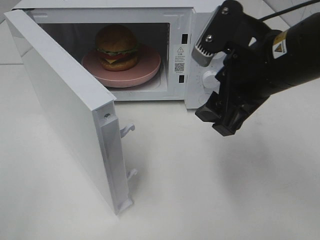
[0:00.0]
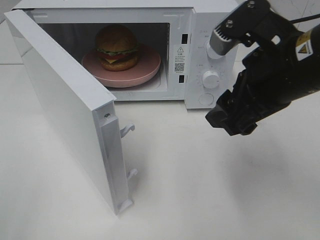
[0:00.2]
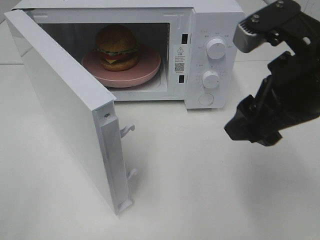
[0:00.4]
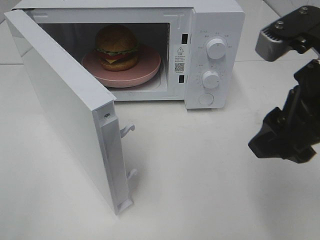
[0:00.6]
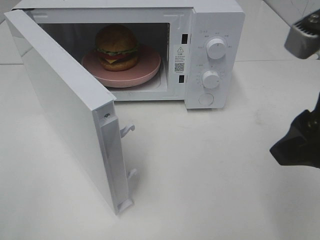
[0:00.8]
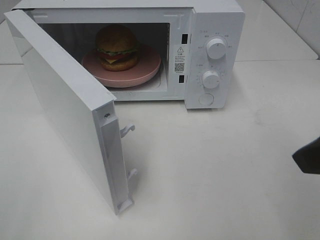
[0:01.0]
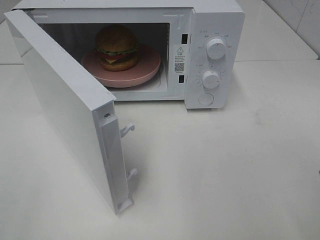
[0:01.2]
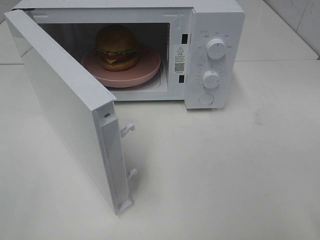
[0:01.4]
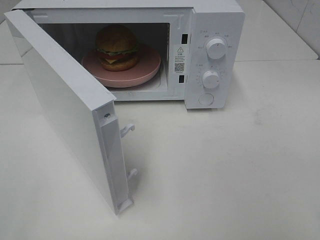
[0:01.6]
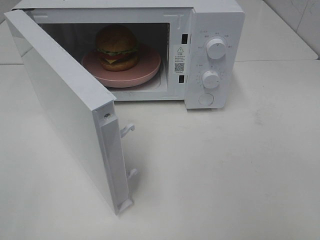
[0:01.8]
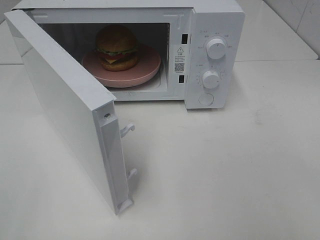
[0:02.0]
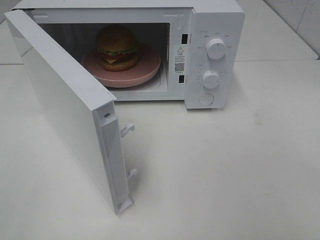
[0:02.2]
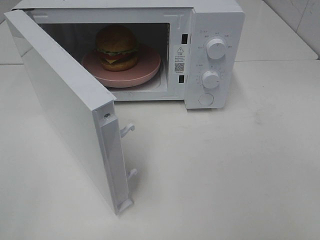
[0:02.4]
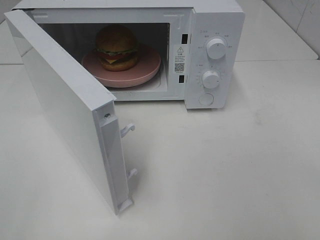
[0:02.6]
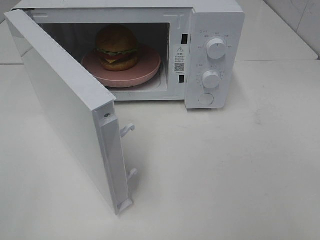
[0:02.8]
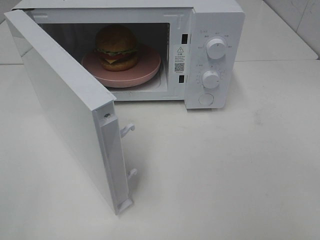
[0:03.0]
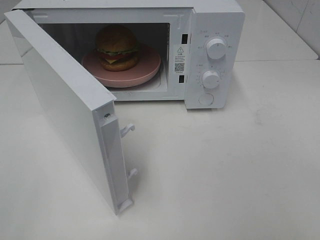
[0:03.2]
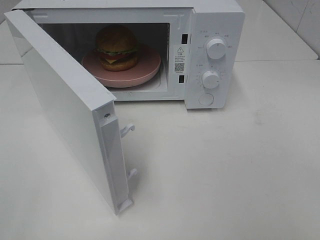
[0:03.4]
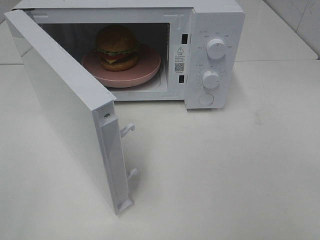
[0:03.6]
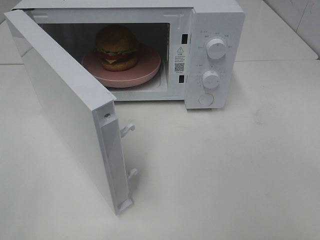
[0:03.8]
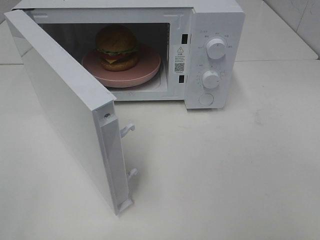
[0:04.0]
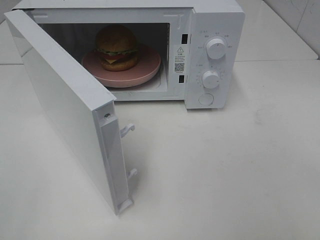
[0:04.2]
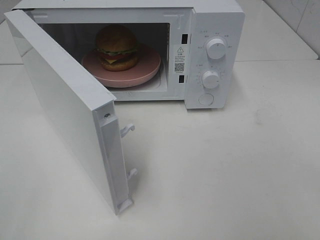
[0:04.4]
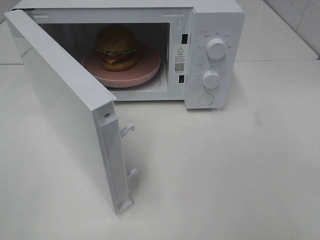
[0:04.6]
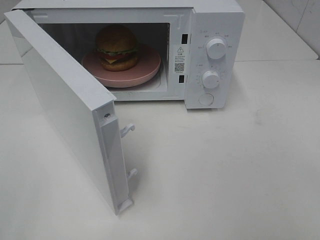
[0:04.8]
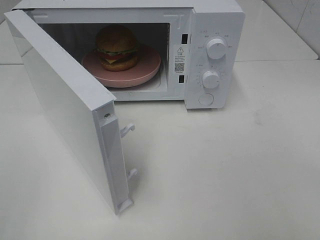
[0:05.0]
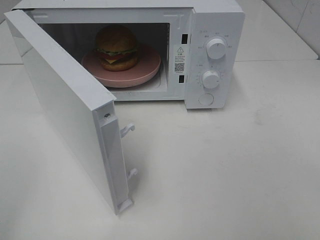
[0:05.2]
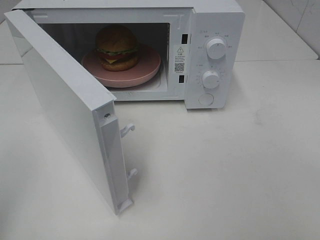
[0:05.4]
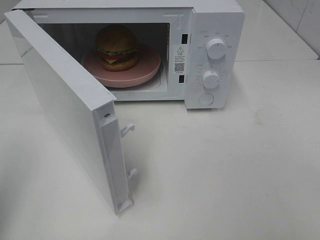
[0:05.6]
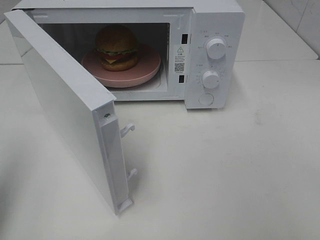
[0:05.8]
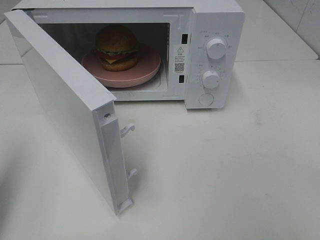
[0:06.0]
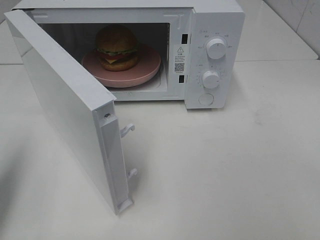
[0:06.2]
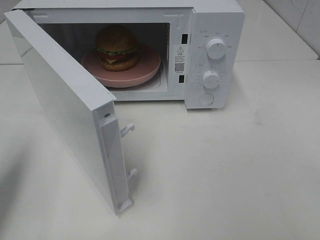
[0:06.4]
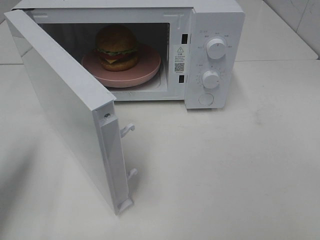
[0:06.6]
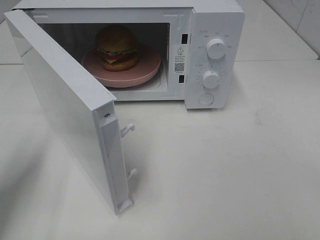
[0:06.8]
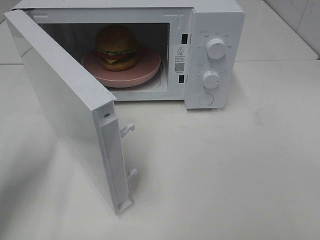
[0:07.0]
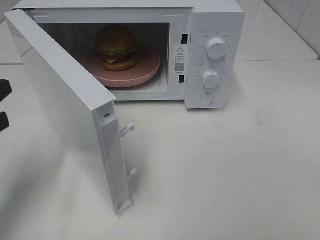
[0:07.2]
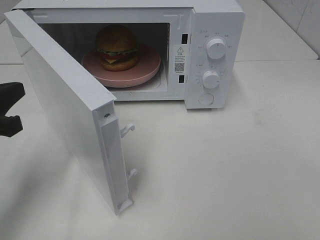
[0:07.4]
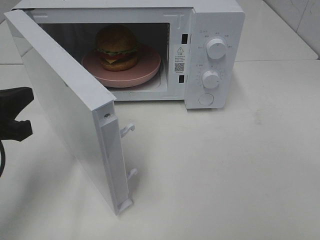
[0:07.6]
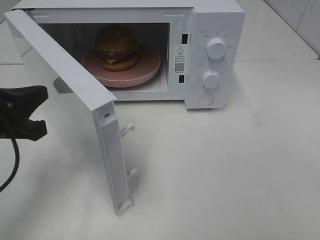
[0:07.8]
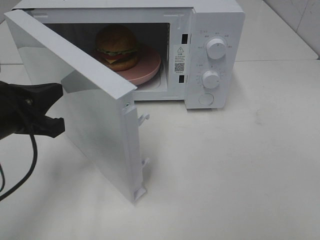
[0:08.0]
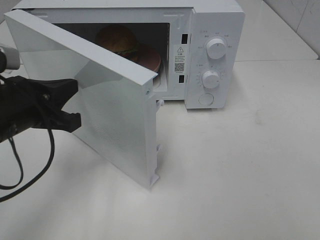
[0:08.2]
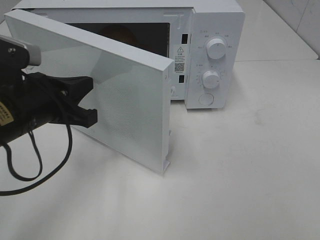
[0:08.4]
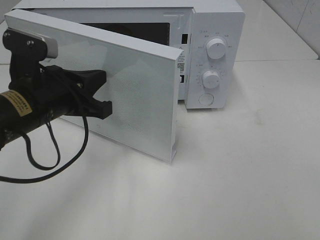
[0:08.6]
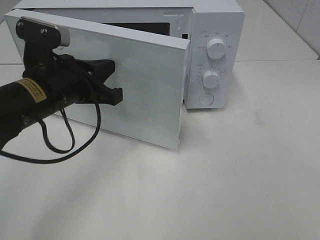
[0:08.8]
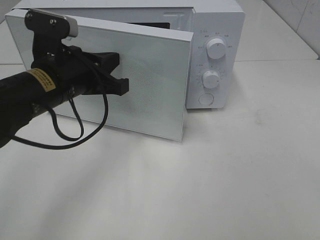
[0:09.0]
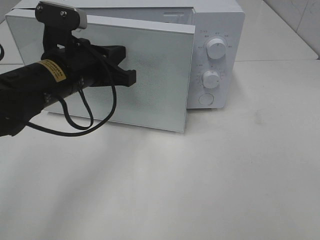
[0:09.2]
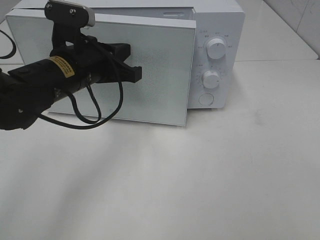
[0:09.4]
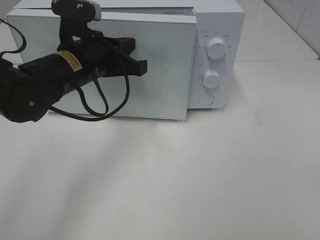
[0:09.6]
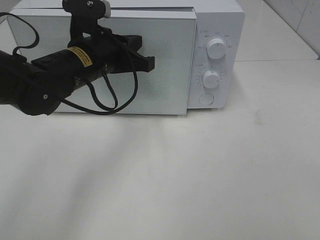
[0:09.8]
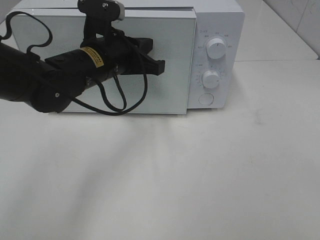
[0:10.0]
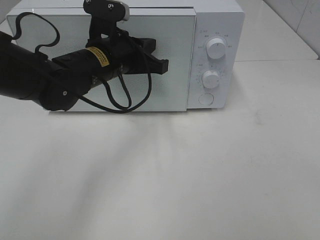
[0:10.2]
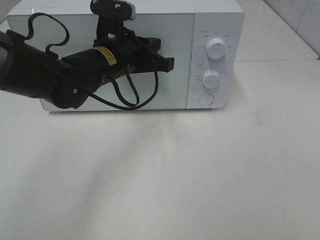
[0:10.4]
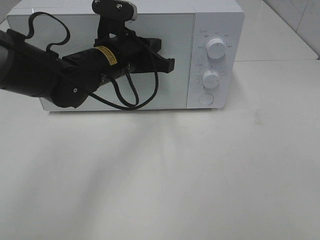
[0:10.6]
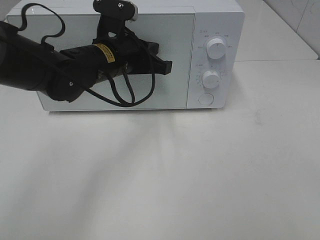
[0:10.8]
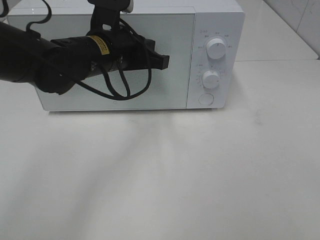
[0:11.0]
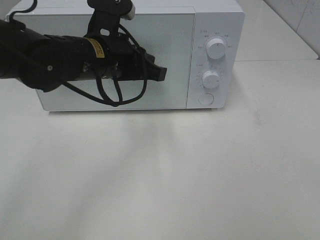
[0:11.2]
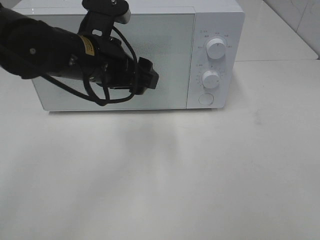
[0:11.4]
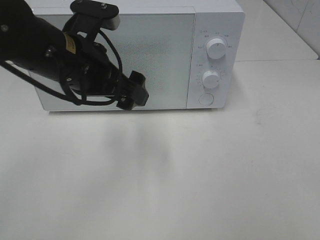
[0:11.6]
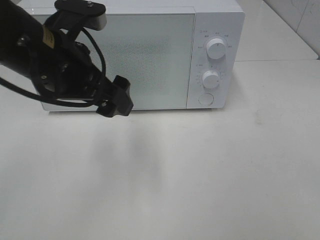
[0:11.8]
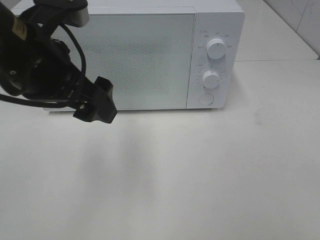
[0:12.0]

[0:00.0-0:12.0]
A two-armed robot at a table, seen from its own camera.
Task of the whole recording: Heat the burger.
Step, 0:00.0 to 0:10.8: Left hand: close the microwave door.
0:00.0 to 0:01.6: The right gripper is displaced backward and to the right by some 20 cm.
0:03.0 to 0:04.4: Neither gripper changes place.
0:04.4 to 0:06.0: The left gripper moves forward, about 15 cm, and closes.
0:06.0 to 0:07.6: The left gripper heads downward, to the right and forward, covering roughly 10 cm.
0:07.6 to 0:09.0: The left gripper is displaced to the right and forward by about 15 cm.
0:09.0 to 0:10.4: The left gripper is displaced forward and to the right by about 10 cm.
0:10.4 to 0:12.0: The left gripper travels backward, upward and to the left by some 15 cm, and opens up.

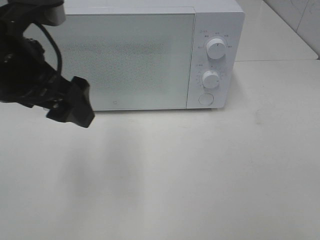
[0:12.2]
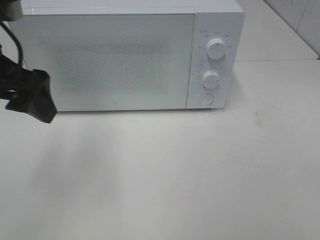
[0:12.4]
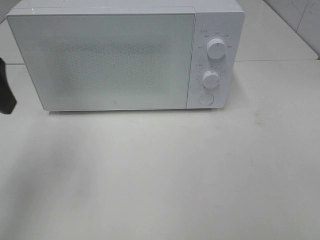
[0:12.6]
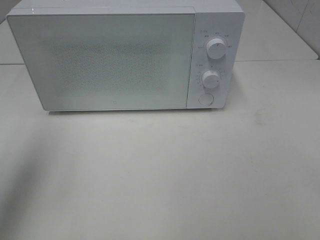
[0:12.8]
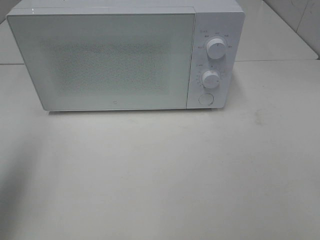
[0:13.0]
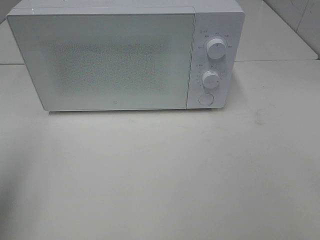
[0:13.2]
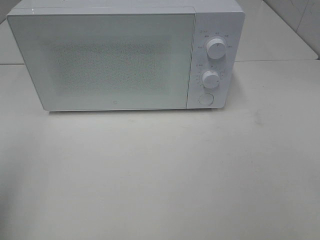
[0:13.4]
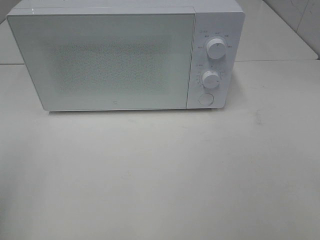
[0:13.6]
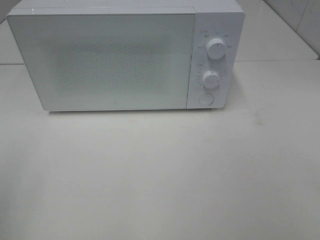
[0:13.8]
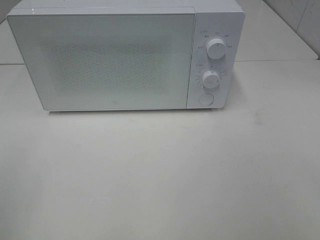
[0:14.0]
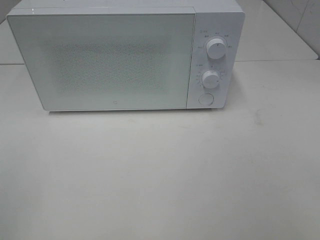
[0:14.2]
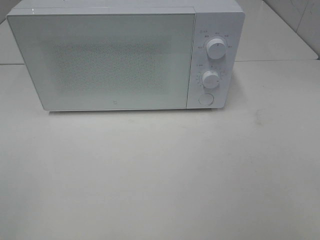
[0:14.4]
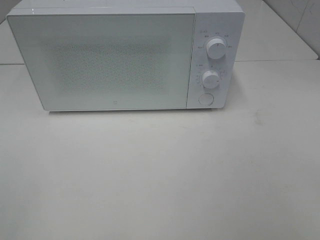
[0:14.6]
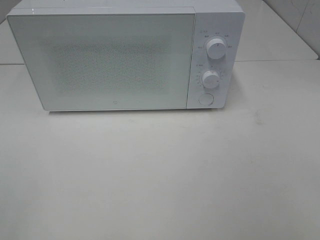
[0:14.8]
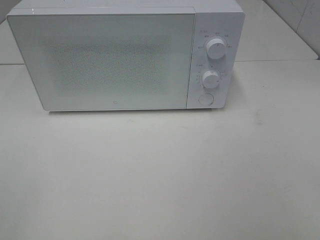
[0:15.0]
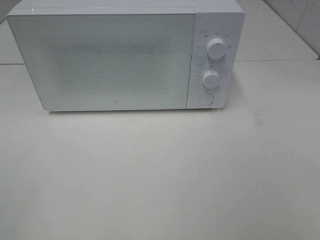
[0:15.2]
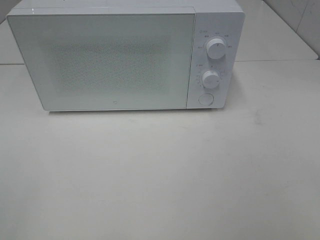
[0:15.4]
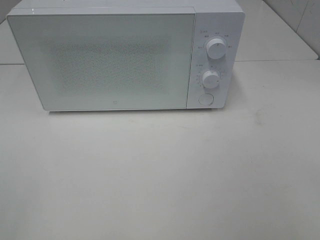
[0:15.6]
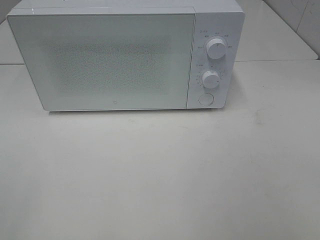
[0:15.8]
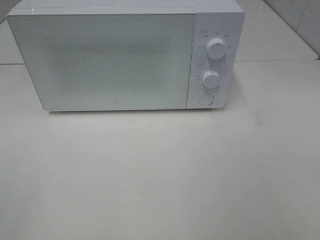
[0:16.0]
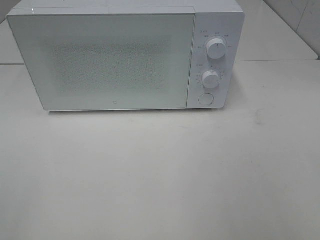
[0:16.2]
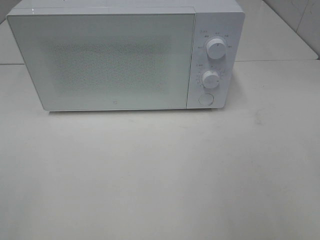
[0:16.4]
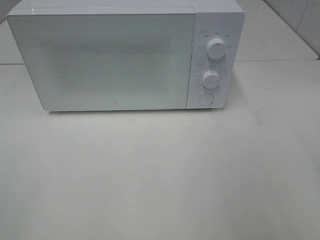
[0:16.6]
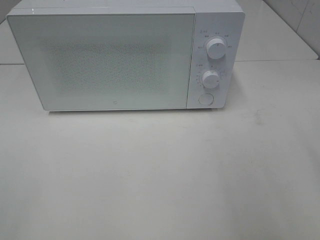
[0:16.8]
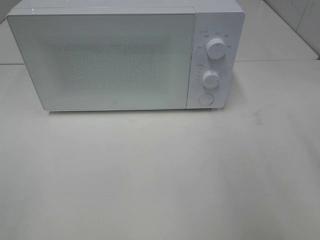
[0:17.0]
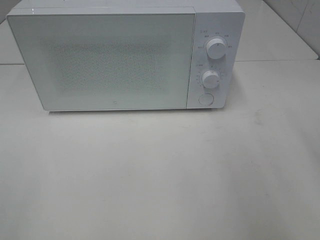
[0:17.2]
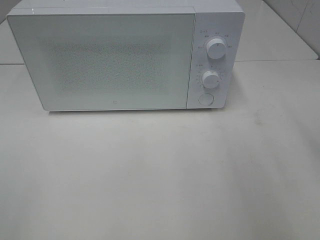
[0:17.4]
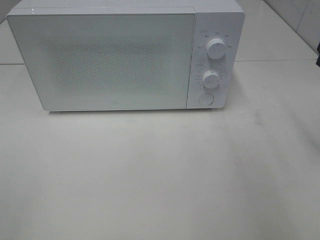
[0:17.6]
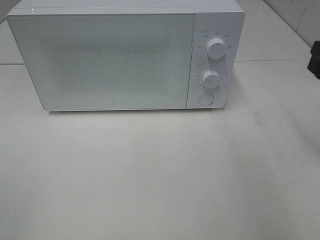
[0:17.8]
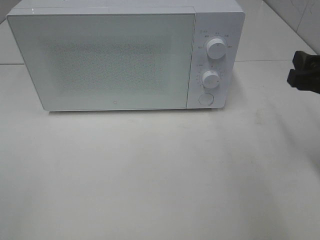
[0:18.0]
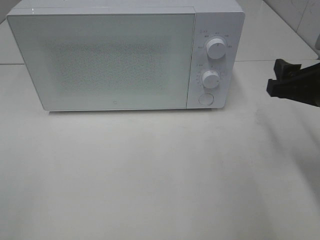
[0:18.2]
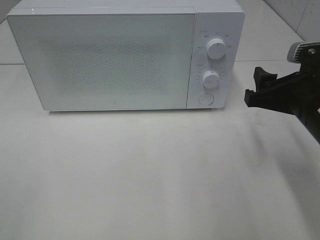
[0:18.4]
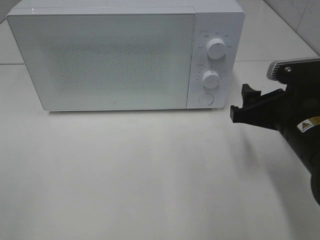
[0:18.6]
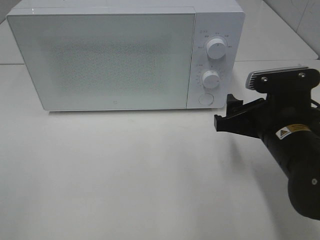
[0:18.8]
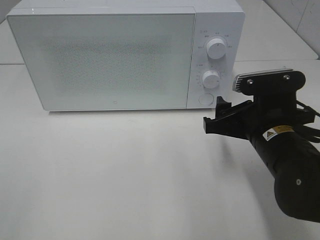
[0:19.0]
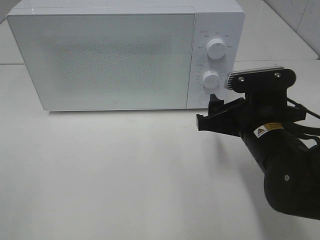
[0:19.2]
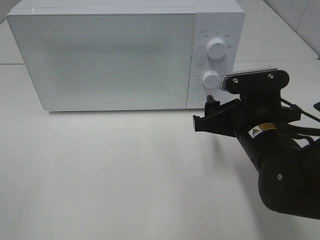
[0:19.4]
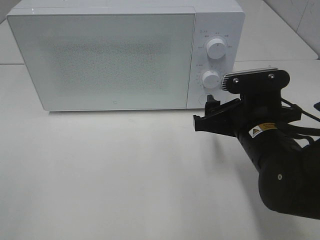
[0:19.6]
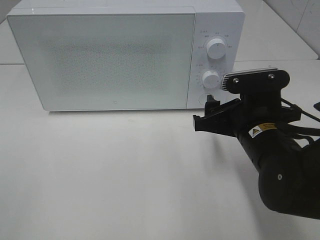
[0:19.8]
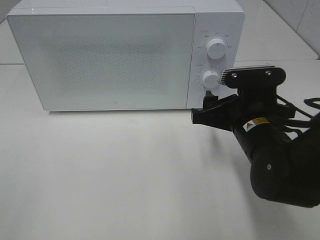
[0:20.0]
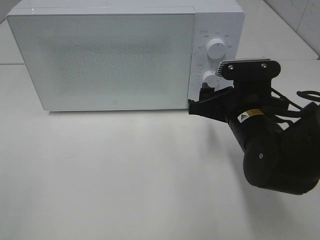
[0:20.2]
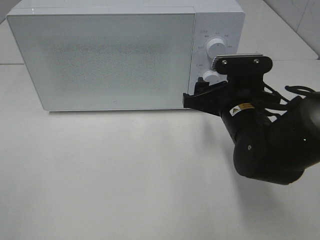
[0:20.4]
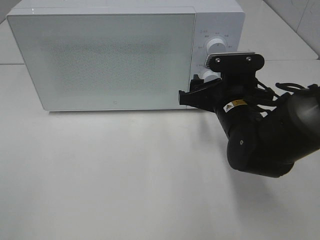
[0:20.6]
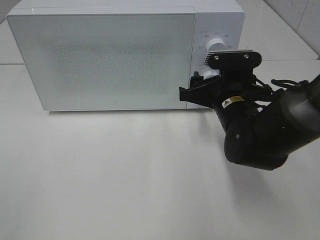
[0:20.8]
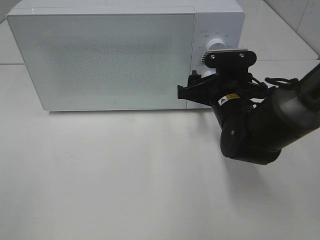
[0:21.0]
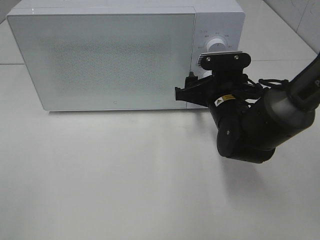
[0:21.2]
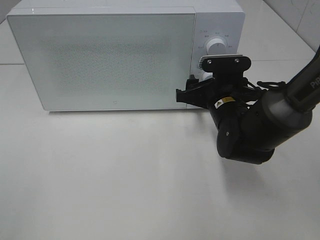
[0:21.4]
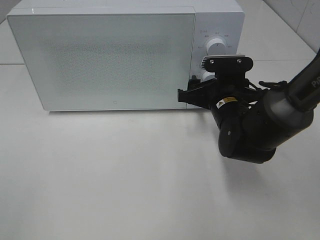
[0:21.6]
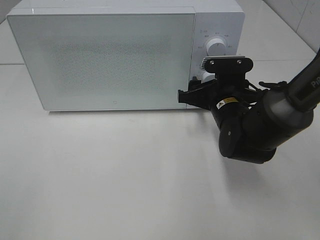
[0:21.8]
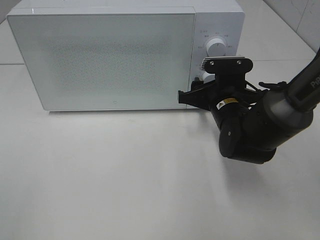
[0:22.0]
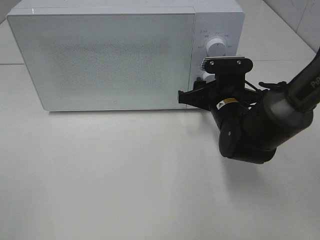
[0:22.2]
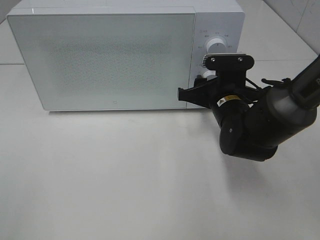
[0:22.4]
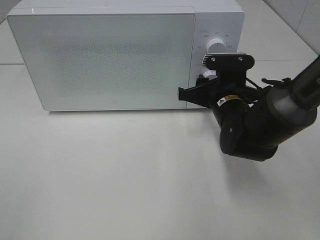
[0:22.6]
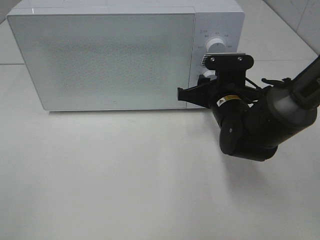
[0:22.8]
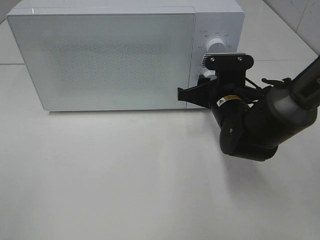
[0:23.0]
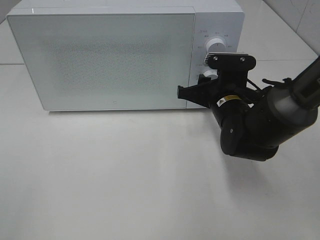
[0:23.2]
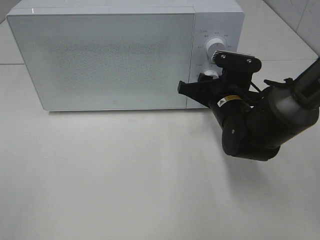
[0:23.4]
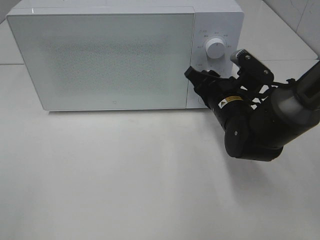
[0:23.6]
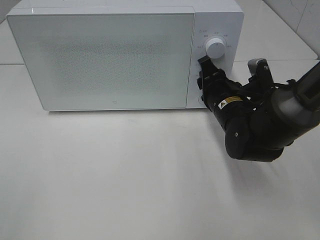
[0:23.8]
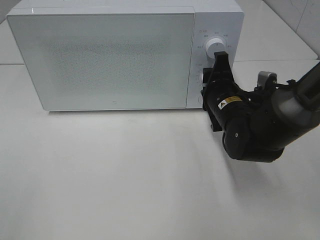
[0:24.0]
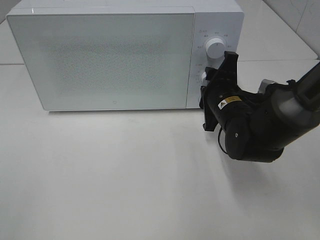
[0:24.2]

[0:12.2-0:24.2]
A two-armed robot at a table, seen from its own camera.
Task of the whole recording: Heat the burger.
0:12.2 to 0:13.8: The left gripper moves to the left and backward, approximately 25 cm.
0:16.6 to 0:18.2: The right gripper shifts roughly 15 cm forward and downward.
0:18.2 to 0:19.8: The right gripper travels to the left and downward by about 10 cm.
0:19.8 to 0:21.2: The right gripper travels forward by some 10 cm.
0:21.2 to 0:22.6: Neither gripper changes place.
